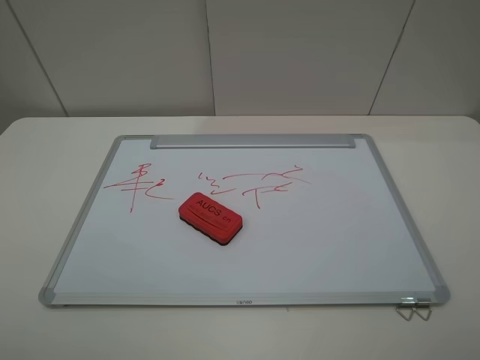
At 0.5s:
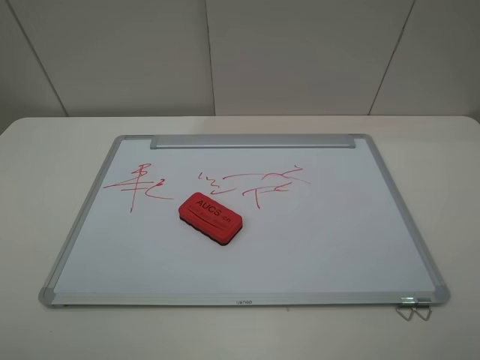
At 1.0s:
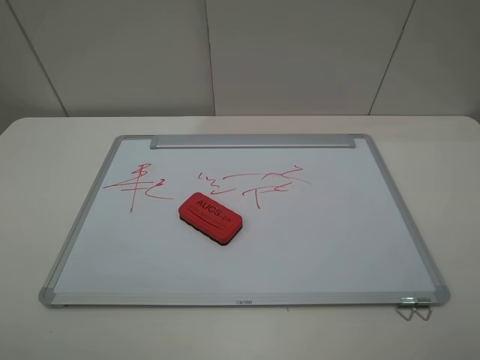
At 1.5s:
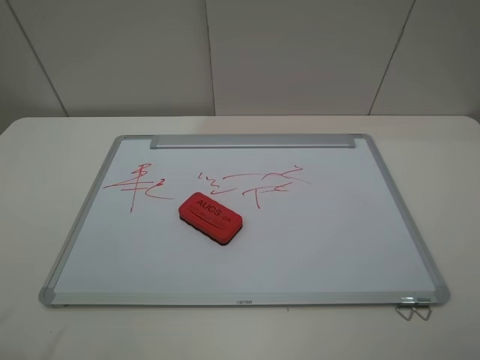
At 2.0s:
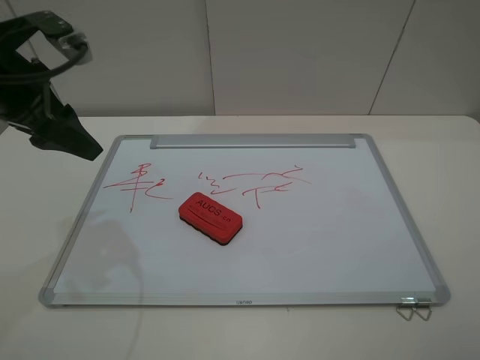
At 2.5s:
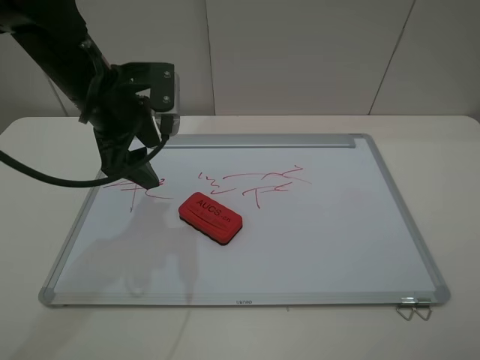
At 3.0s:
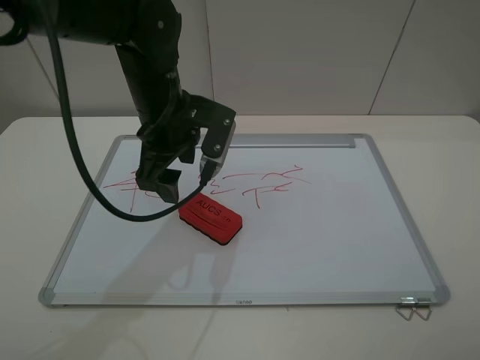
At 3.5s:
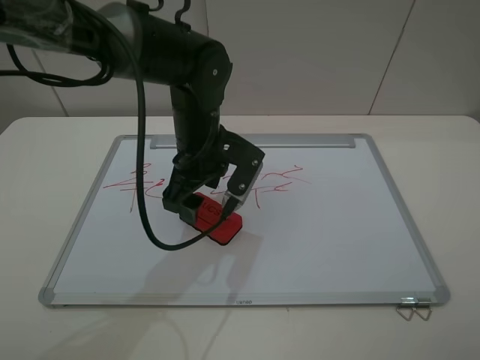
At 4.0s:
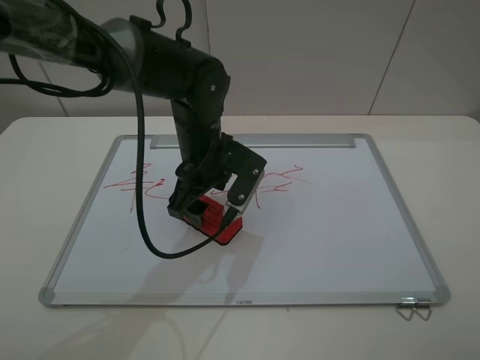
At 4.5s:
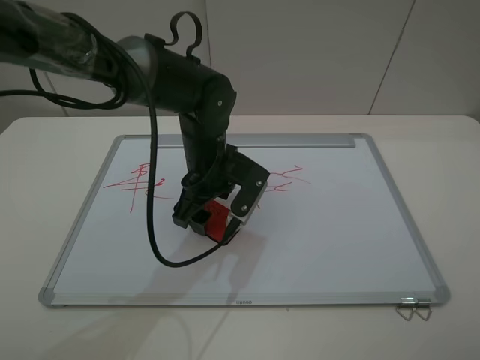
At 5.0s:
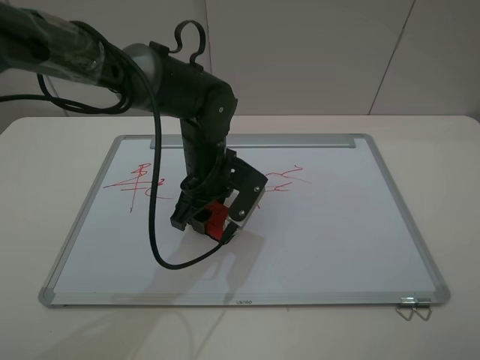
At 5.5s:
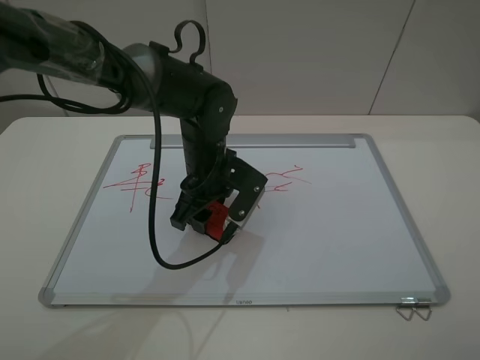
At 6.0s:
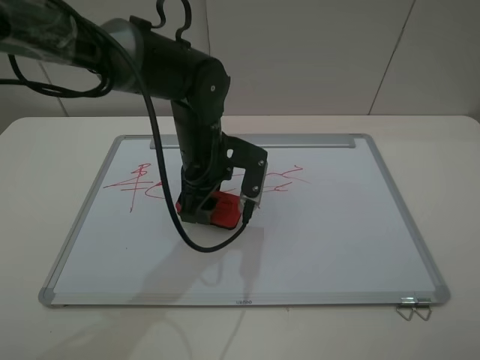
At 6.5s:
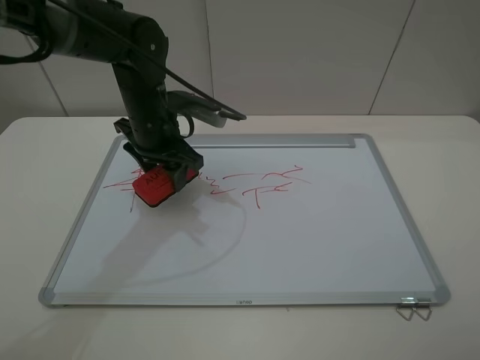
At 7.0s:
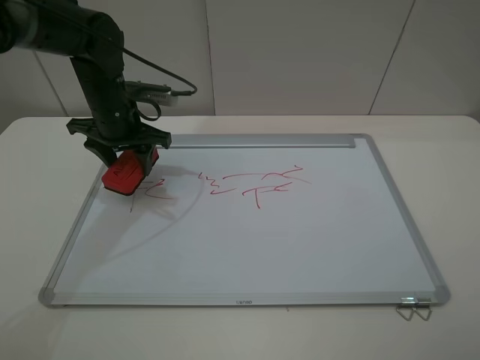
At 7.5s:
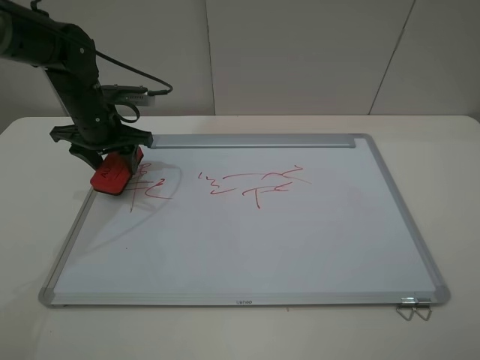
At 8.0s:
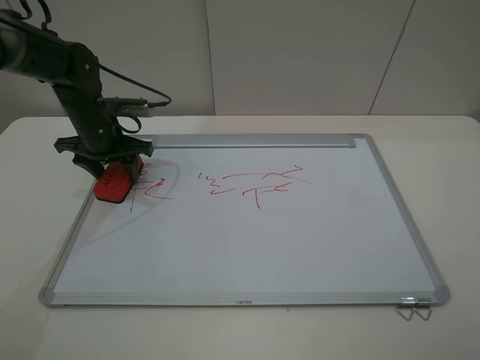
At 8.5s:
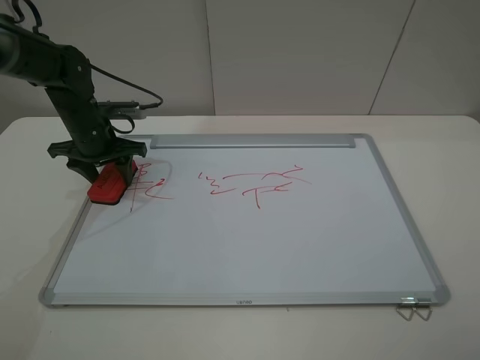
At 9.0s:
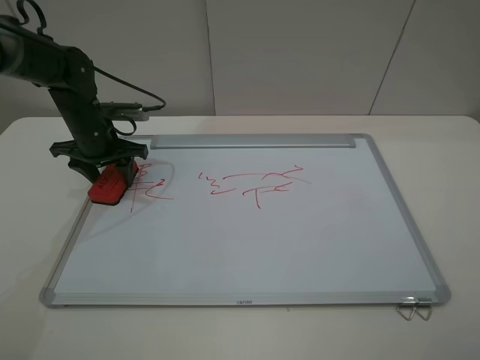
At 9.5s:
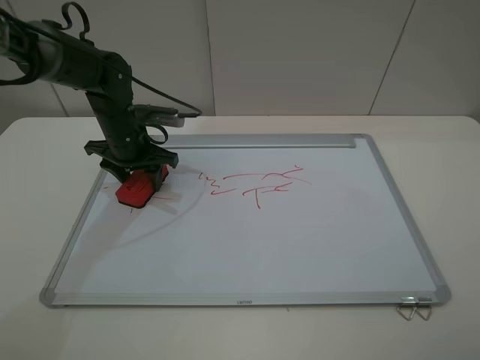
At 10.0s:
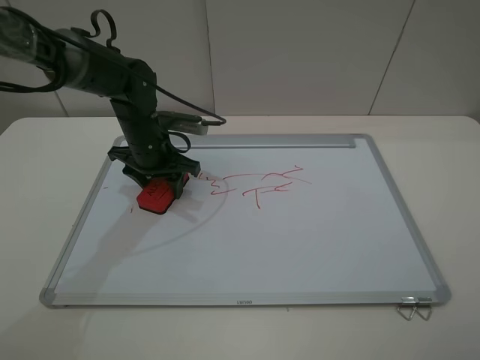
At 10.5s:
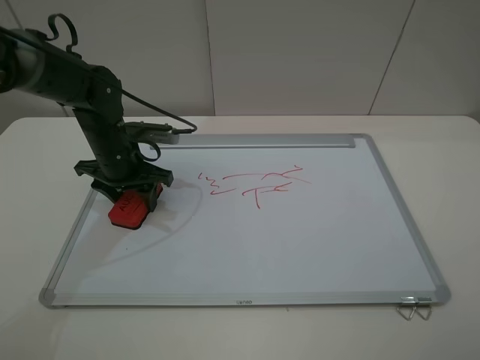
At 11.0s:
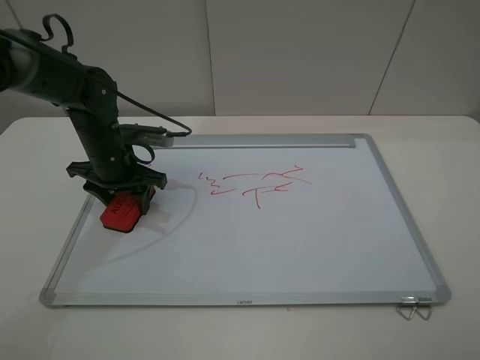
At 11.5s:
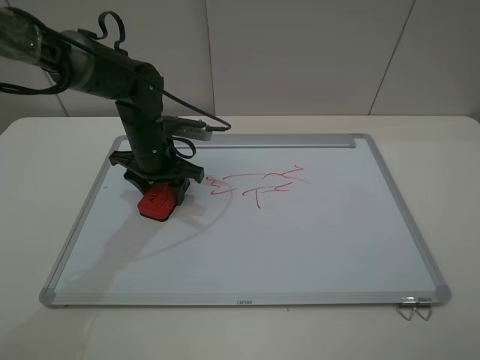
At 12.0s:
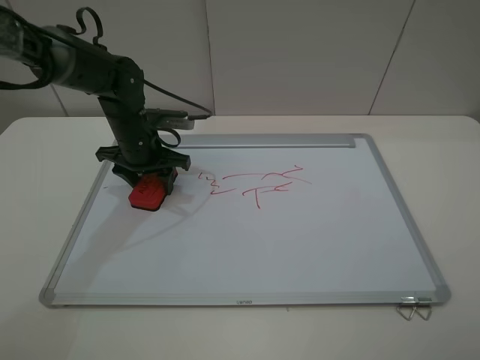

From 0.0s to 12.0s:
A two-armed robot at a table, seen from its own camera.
Step, from 0.0s to 5.0s: Grasp the eraser with the left gripper.
From 0.0s to 2.0s: The left gripper travels forward by roughly 30 cm.
From 2.0s to 4.0s: The left gripper goes some 25 cm to the right and downward.
From 4.0s to 6.0s: The left gripper closes.
From 6.0s to 8.0s: The left gripper goes roughly 20 cm to the left and forward.
From 8.0s to 10.0s: The left gripper goes roughly 10 cm to the right.
From 10.0s to 12.0s: The left gripper moves left and right over approximately 5 cm, changing direction 2 times.

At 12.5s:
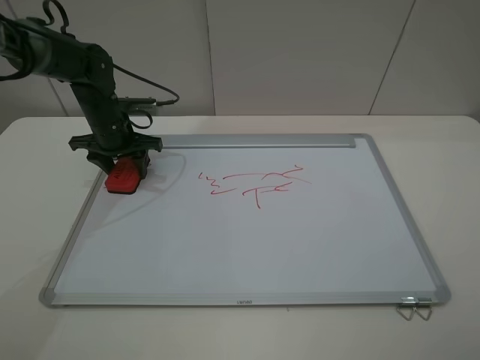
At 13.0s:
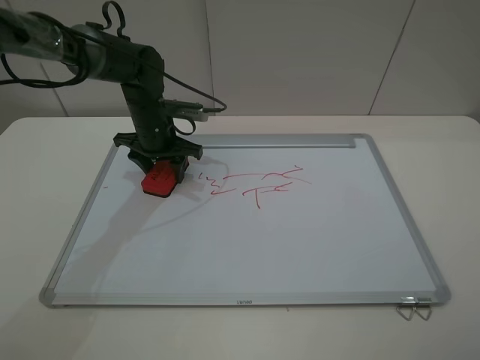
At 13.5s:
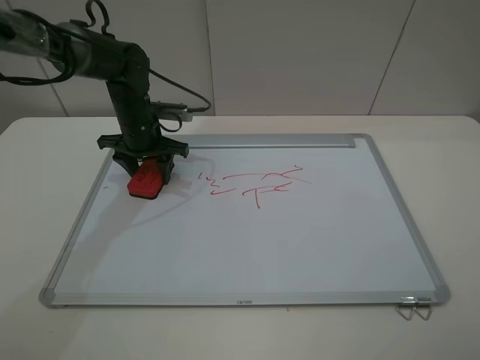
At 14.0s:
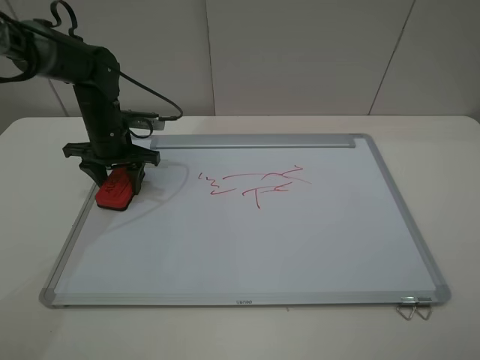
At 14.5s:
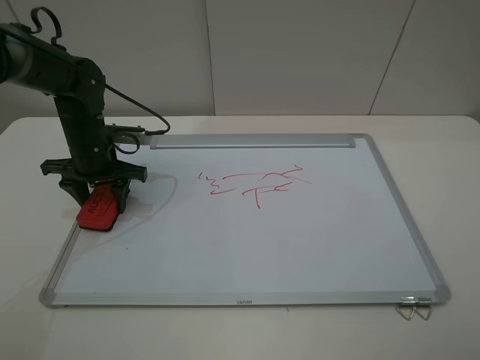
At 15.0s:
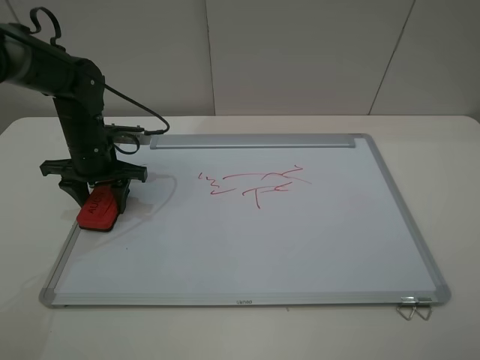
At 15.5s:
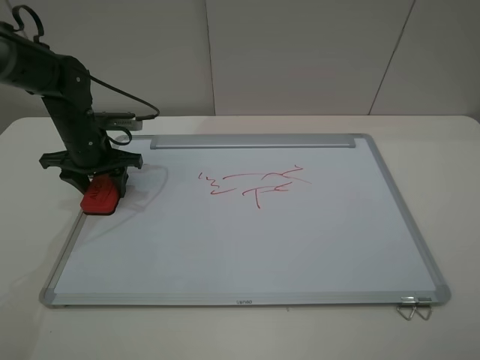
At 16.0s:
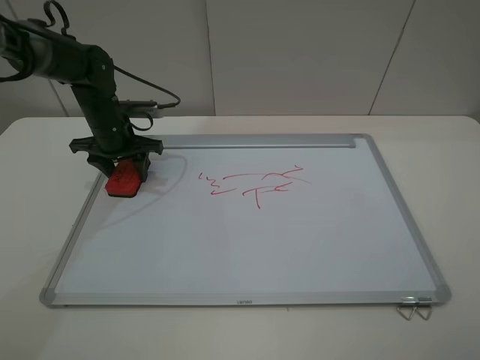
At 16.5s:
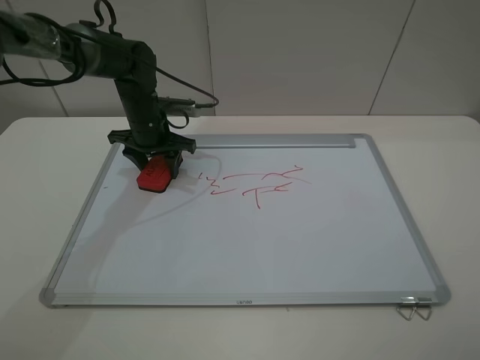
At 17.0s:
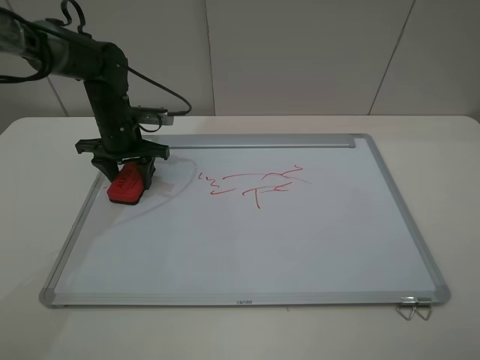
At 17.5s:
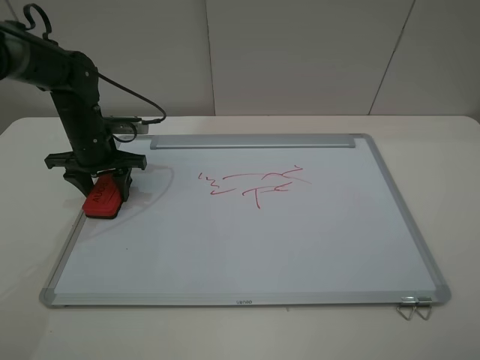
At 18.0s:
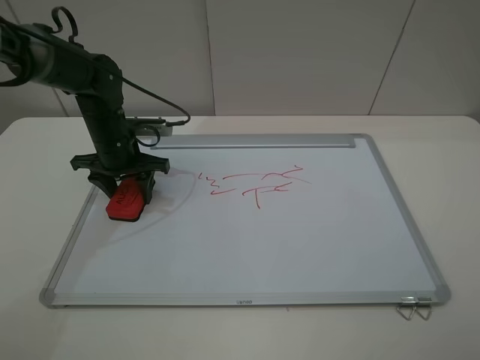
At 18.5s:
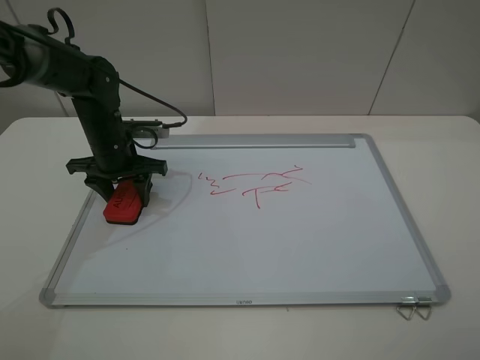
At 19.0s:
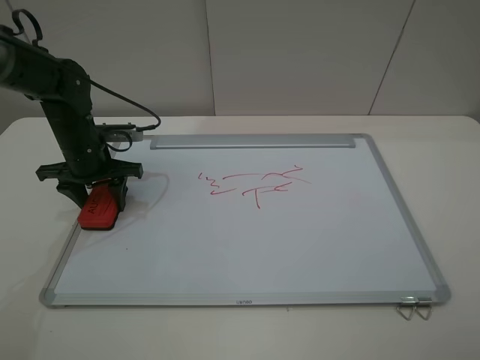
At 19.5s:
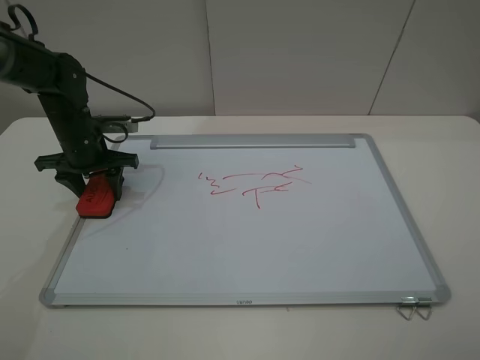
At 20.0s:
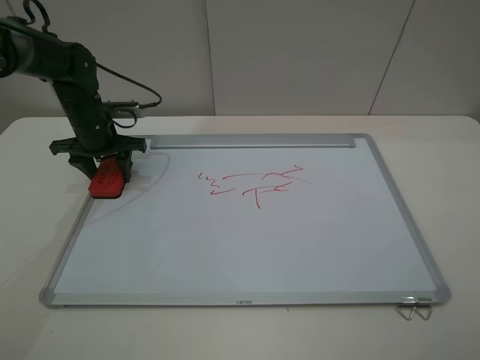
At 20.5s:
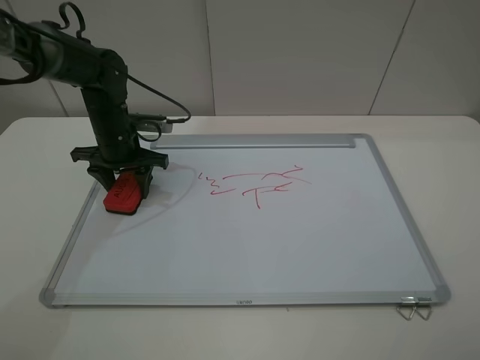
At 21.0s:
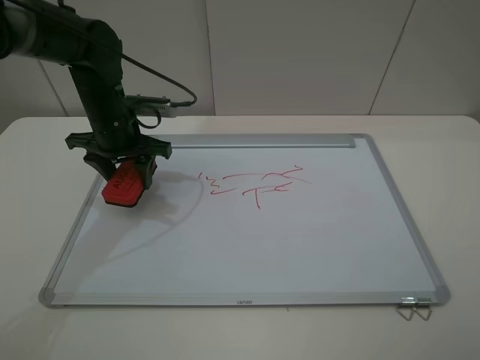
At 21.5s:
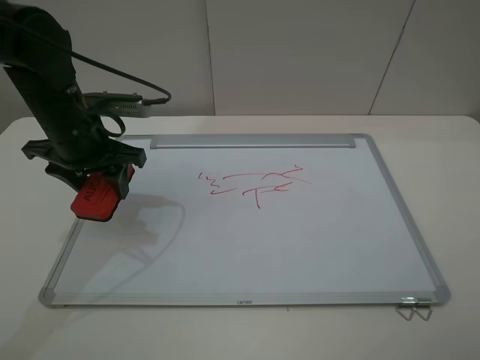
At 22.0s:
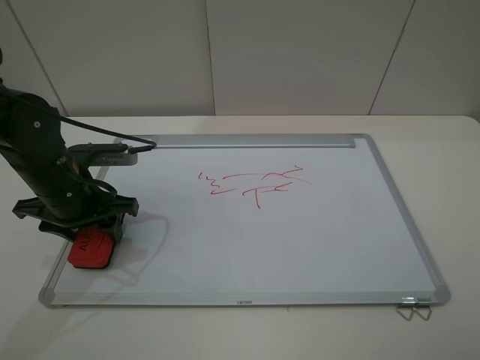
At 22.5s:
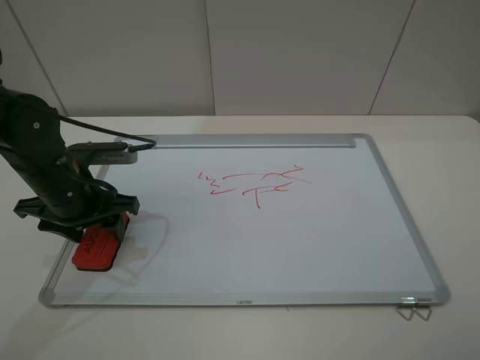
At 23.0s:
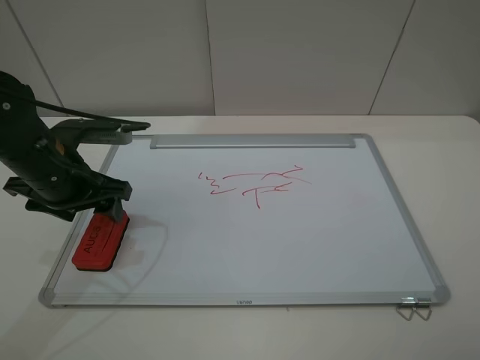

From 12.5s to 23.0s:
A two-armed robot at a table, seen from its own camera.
Step, from 12.5s to 20.5s: Grasp the eraser and wipe the blackboard with the left gripper.
Step, from 21.0s to 23.0s: Place the eraser with the left gripper.
From 12.5s to 14.5s: The left gripper goes about 5 cm backward, and goes to the right and returns, about 5 cm each way.
From 14.5s to 16.5s: The left gripper moves to the right and forward, approximately 10 cm.
From 16.5s to 19.0s: The left gripper swings left and right, some 10 cm each way, with 2 reversals.
From 19.0s to 21.0s: The left gripper goes some 10 cm to the right and upward.
From 21.0s to 23.0s: The left gripper goes roughly 10 cm backward, and opens.

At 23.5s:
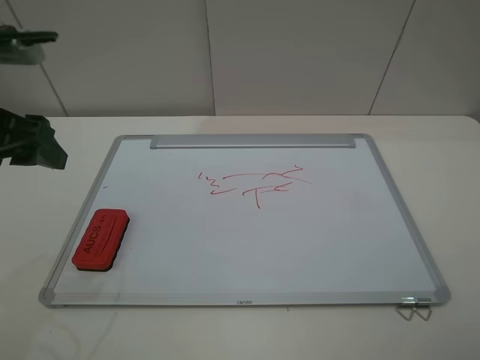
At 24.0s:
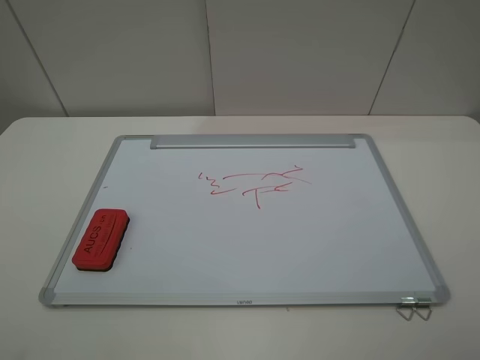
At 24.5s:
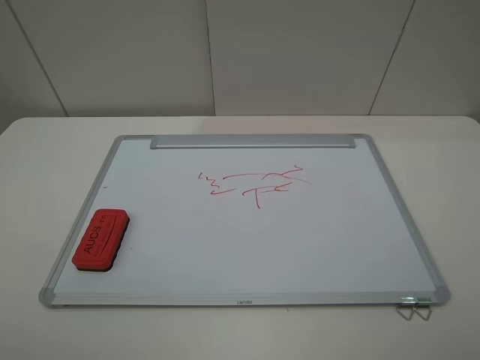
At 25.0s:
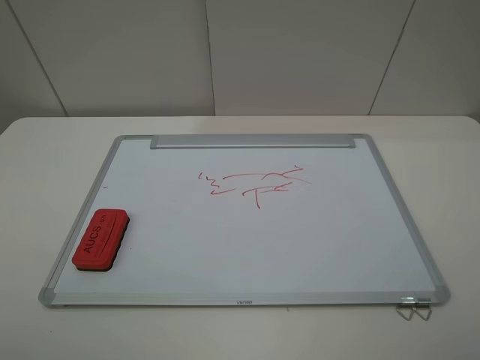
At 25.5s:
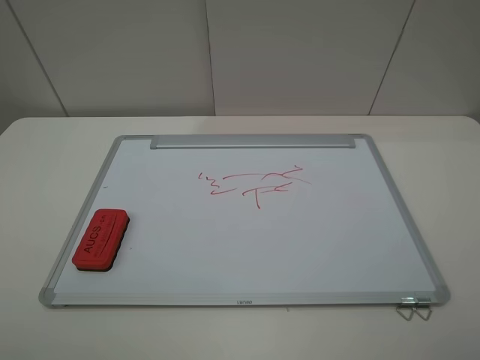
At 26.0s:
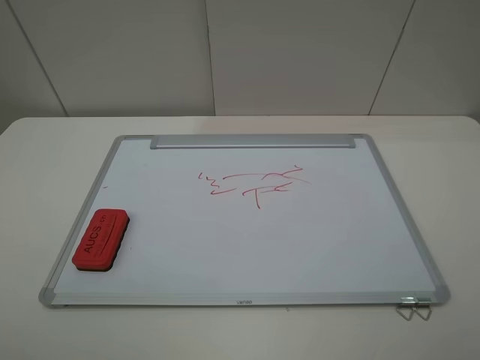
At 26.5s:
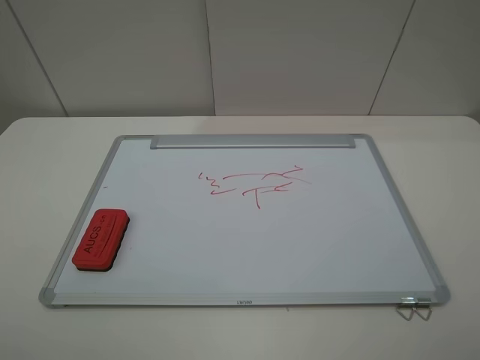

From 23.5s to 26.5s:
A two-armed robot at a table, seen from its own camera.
From 23.5s to 25.0s: The left gripper is displaced backward by some 20 cm.
